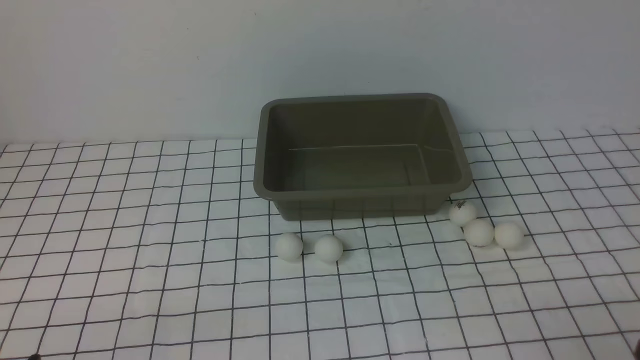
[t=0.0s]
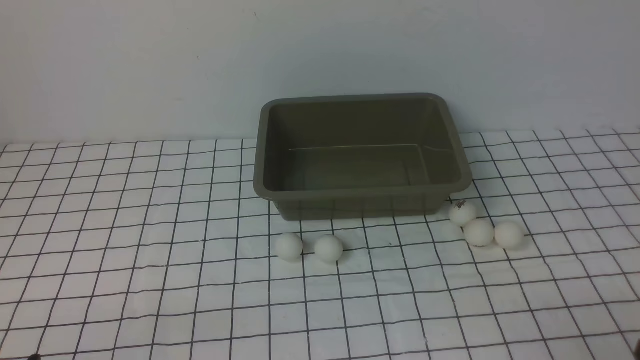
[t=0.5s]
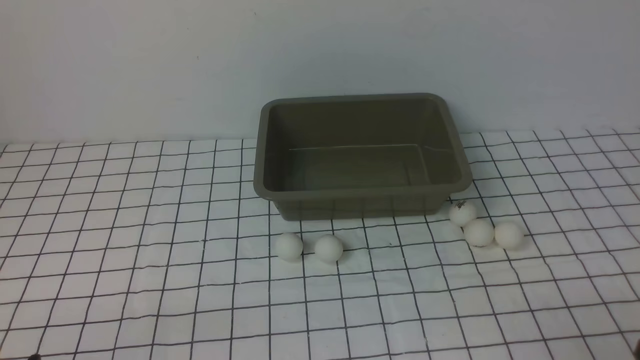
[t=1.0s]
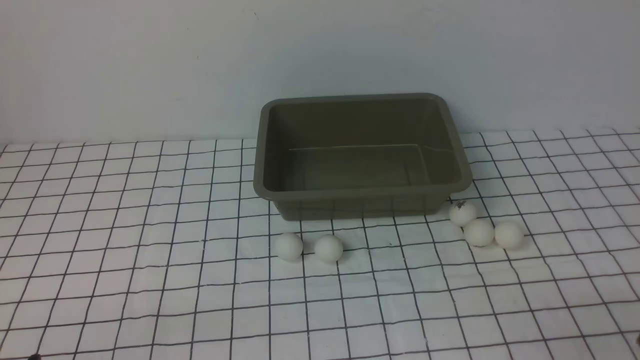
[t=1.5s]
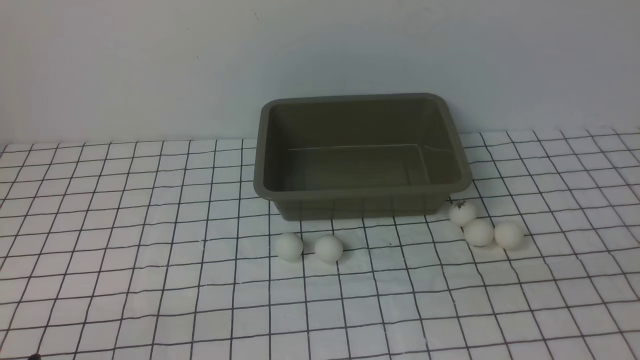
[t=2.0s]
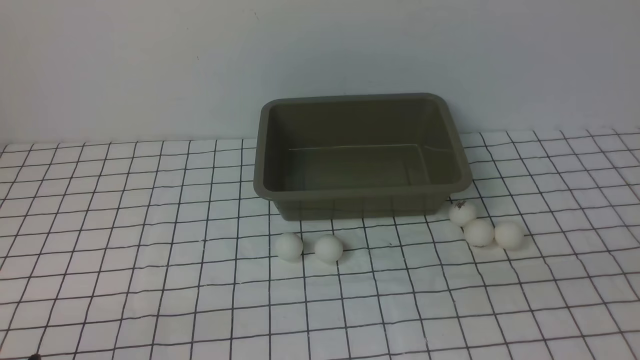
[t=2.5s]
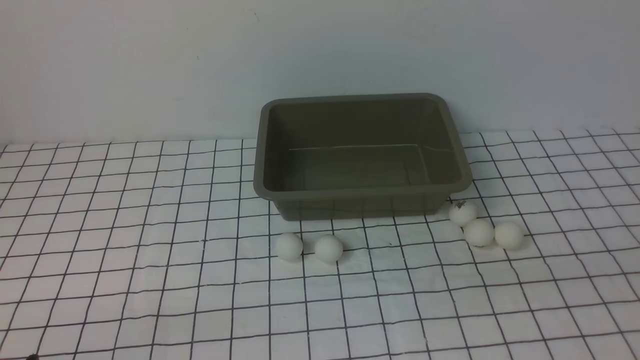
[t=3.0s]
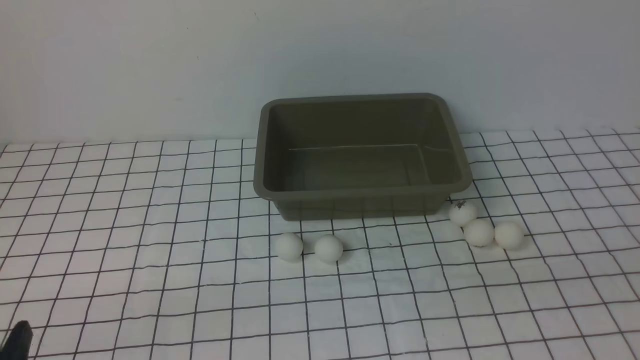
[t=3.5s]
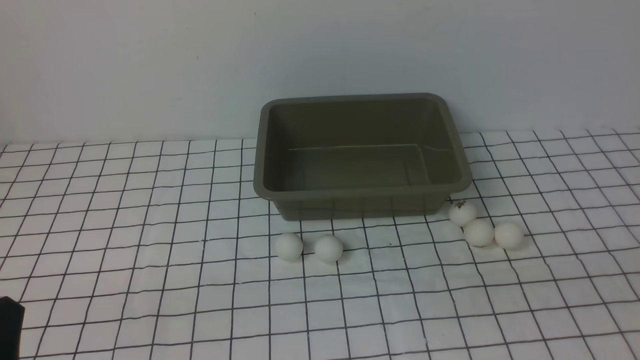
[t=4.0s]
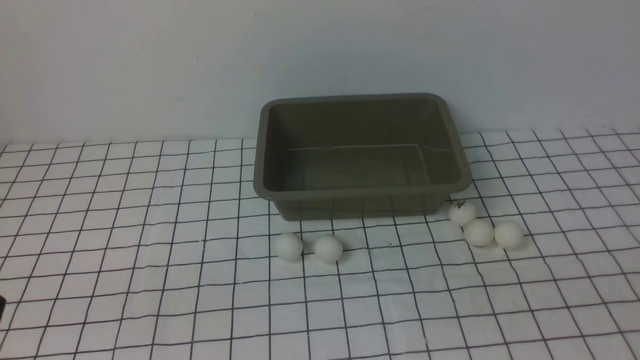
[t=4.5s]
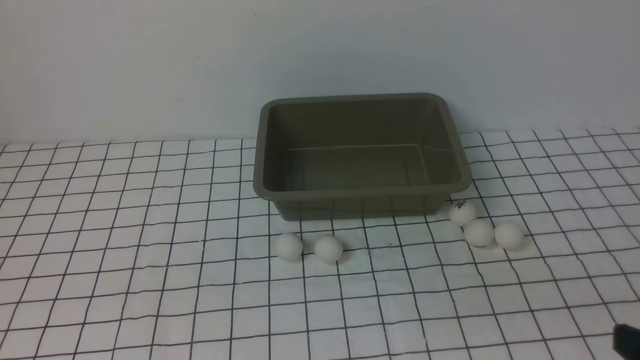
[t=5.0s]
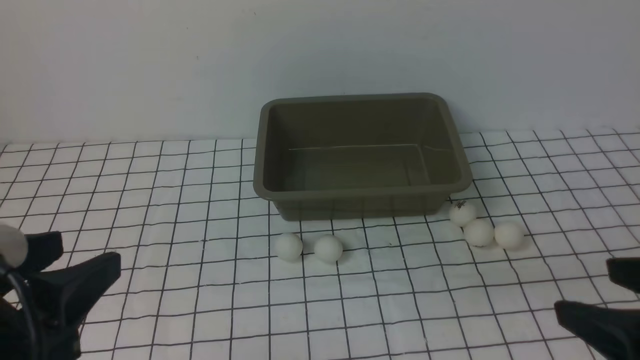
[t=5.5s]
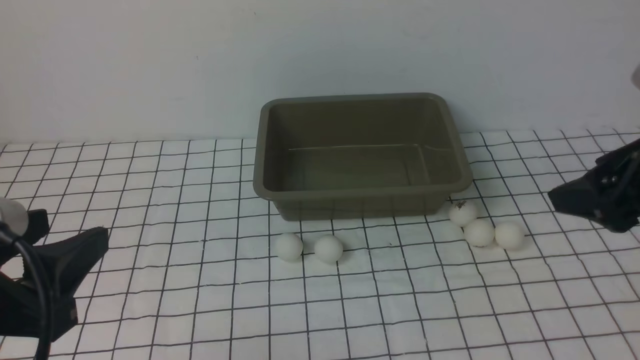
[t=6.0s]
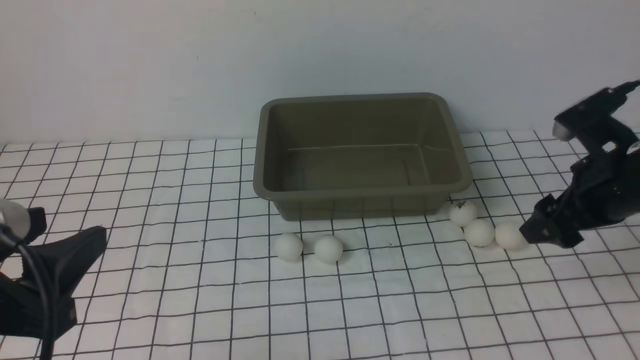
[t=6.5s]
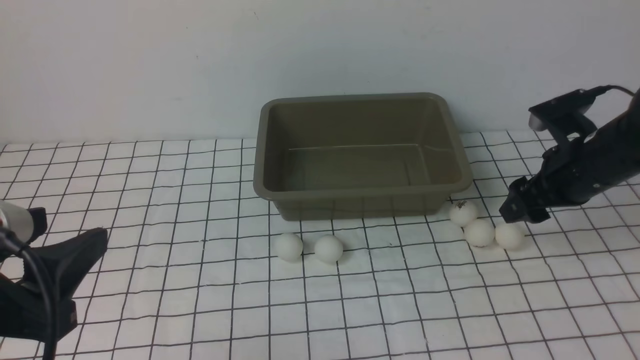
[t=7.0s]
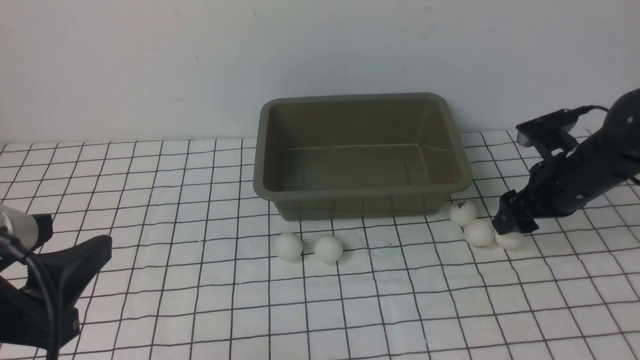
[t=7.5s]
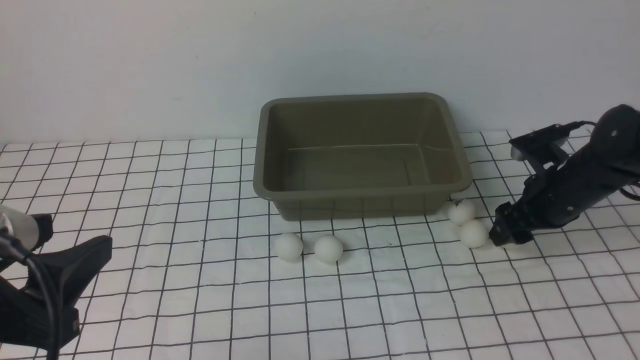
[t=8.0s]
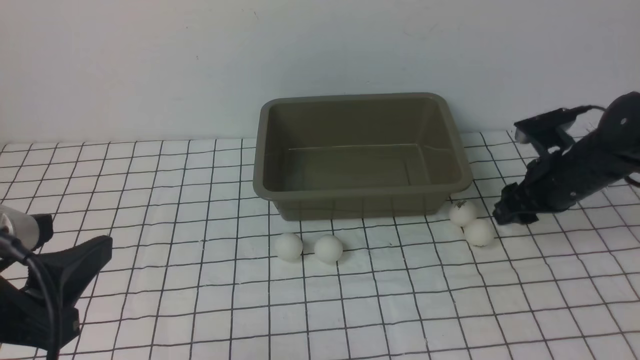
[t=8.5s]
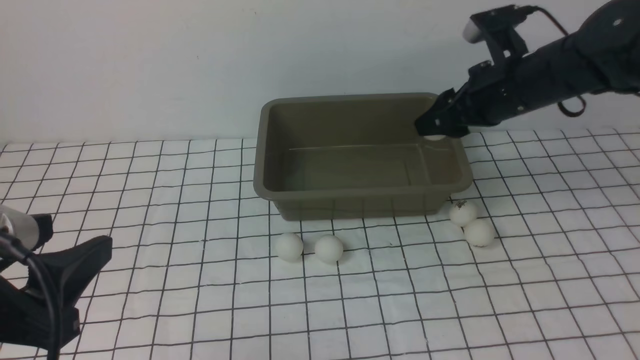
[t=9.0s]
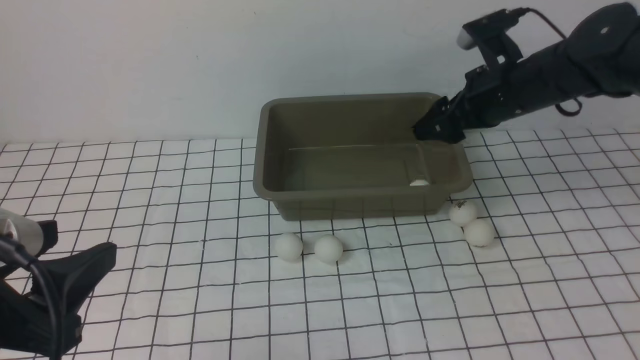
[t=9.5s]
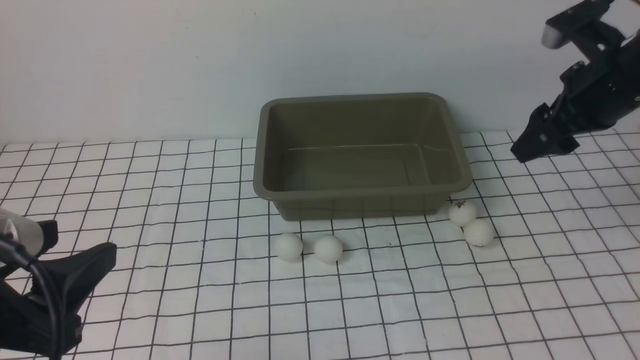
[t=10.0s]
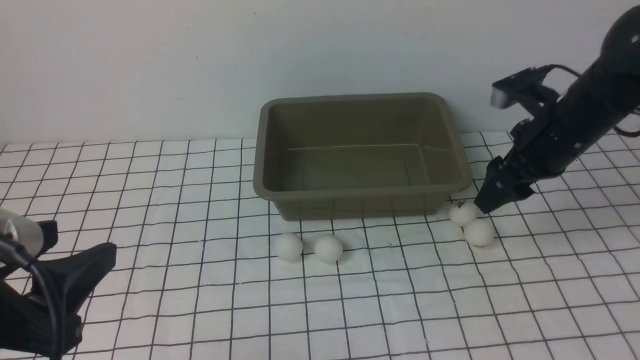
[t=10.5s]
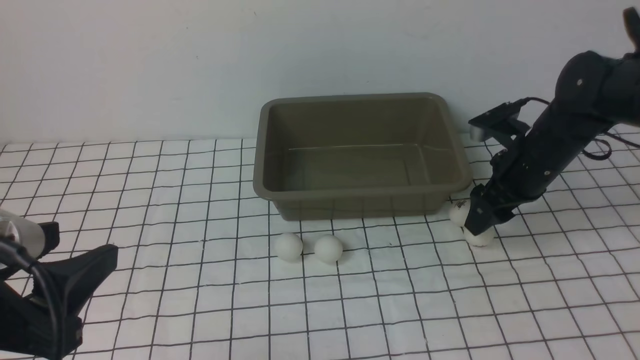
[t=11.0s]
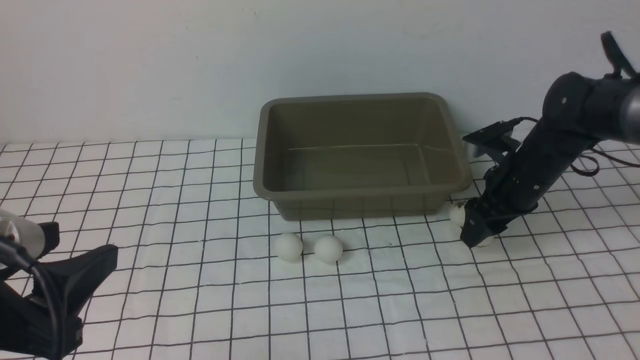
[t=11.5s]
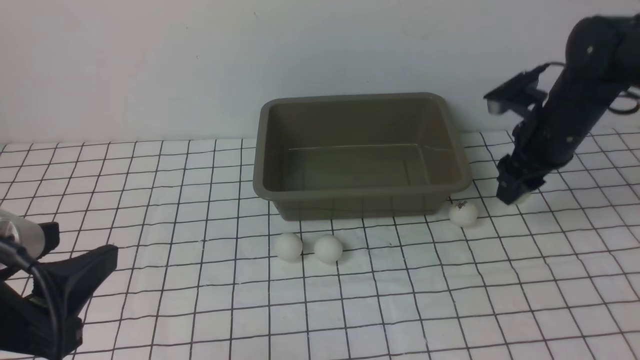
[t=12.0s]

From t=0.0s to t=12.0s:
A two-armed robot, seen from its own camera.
Step, from t=0.0s to t=8.5s: use the right arm to clamp the table tennis ball closest to it.
Step, from t=9.5s to t=12.0s: use the right arm to clamp the table tennis ball closest to it.
From t=4.0s to t=6.0s: The right gripper travels forward by approximately 25 cm, while the left gripper moves upward and forward, some 10 cm.
From t=6.0s to t=8.0s: The right gripper is displaced downward and forward by about 25 cm.
From t=8.0s to t=10.0s: The right gripper travels upward by about 15 cm, and closes and opens again.
From t=10.0s to t=12.0s: The right gripper goes approximately 5 cm downward, and closes its fingers.

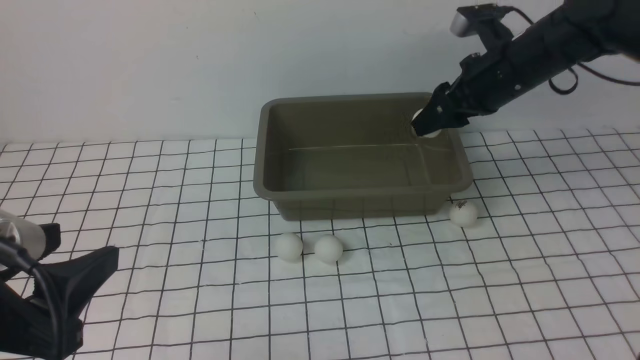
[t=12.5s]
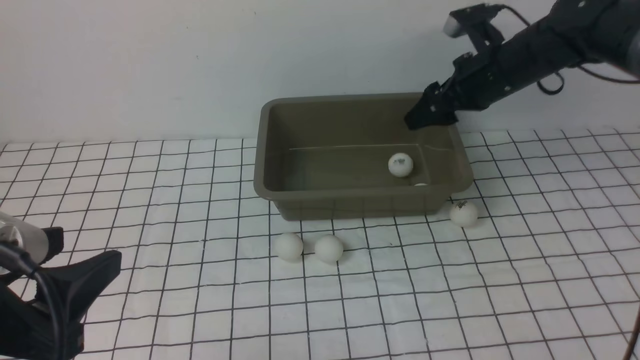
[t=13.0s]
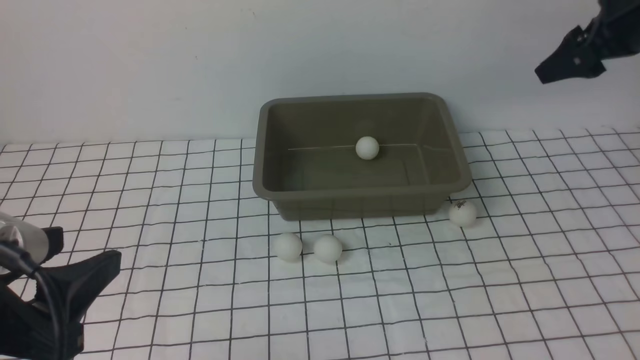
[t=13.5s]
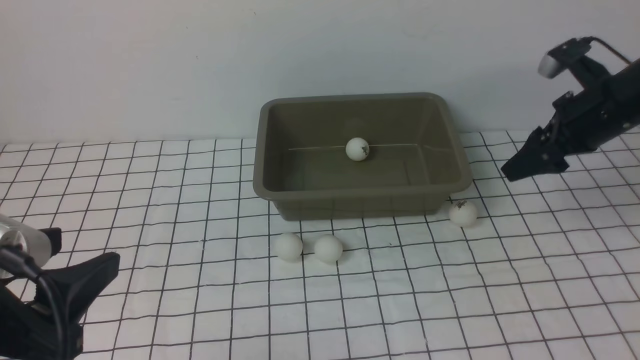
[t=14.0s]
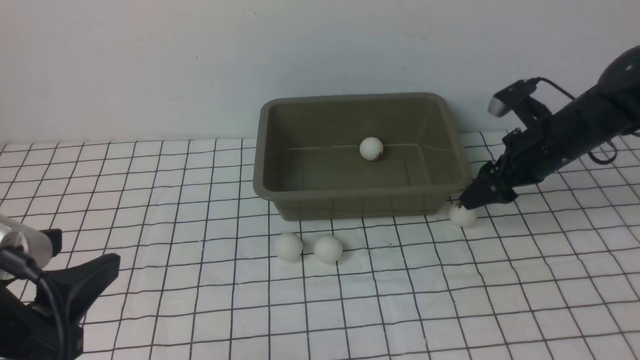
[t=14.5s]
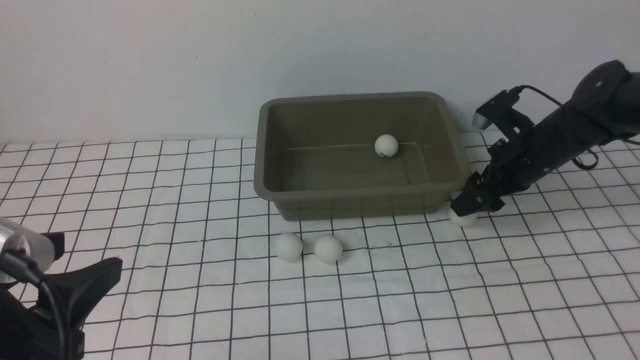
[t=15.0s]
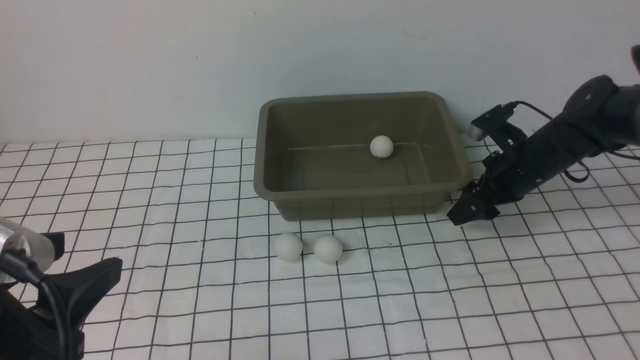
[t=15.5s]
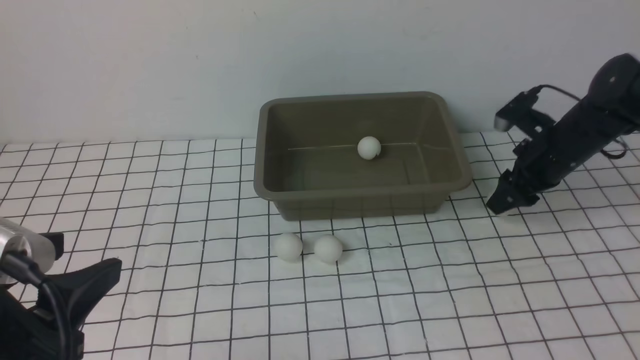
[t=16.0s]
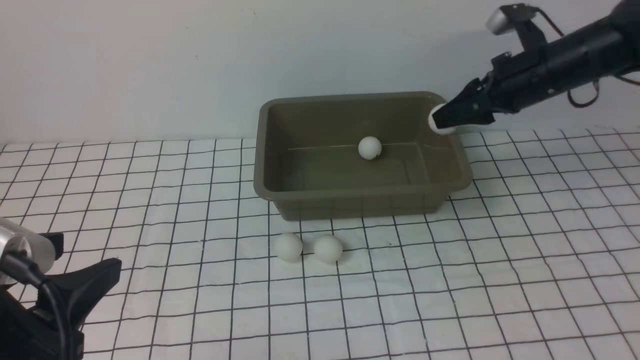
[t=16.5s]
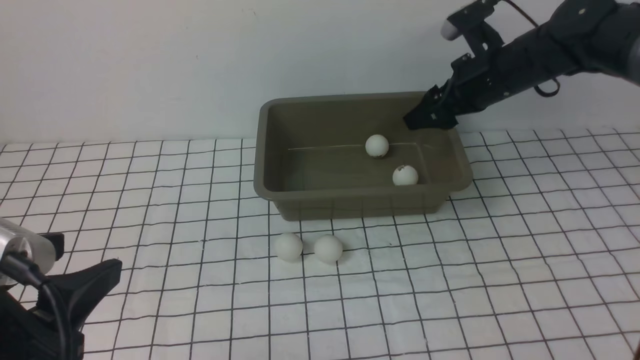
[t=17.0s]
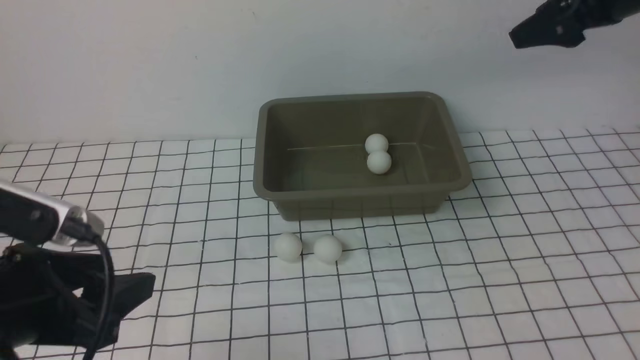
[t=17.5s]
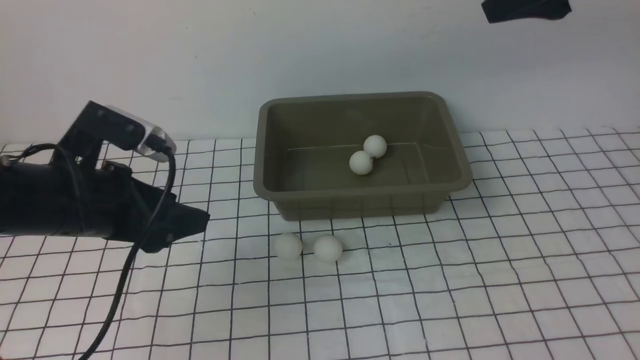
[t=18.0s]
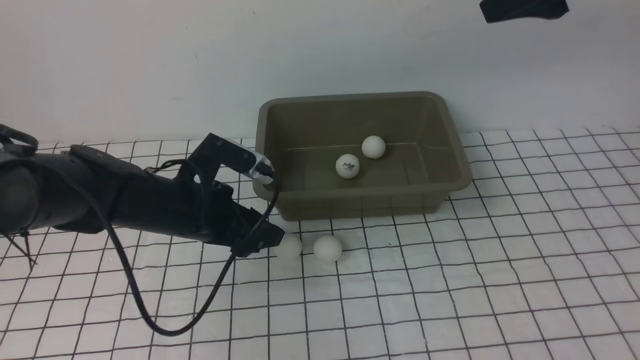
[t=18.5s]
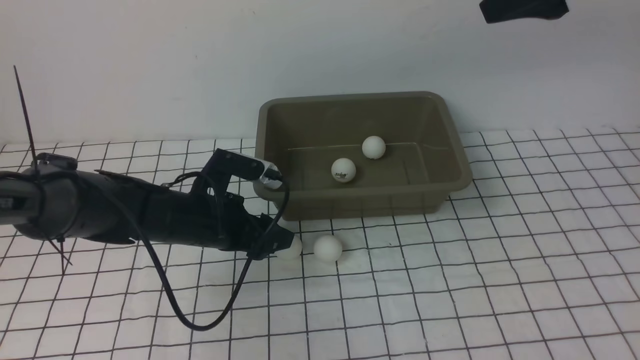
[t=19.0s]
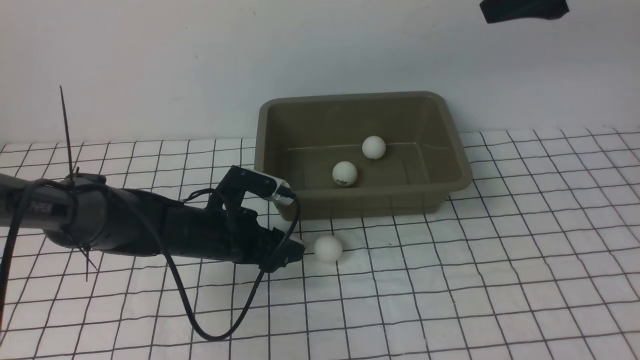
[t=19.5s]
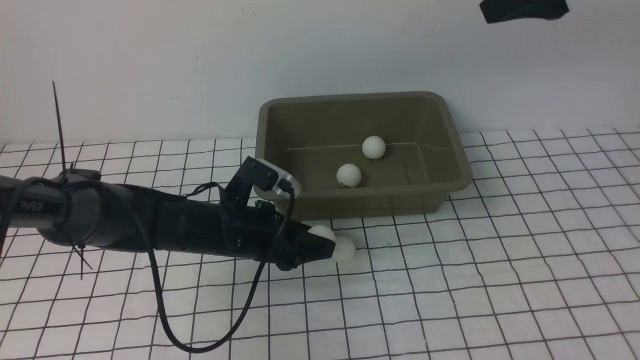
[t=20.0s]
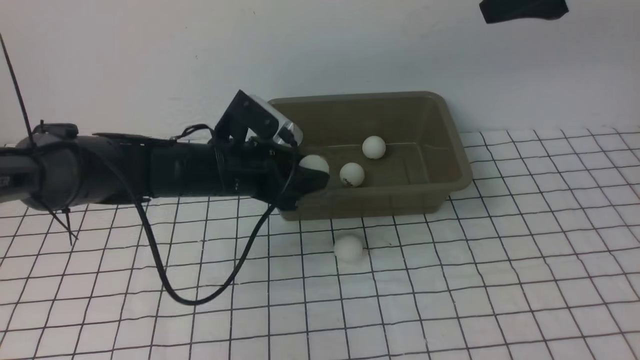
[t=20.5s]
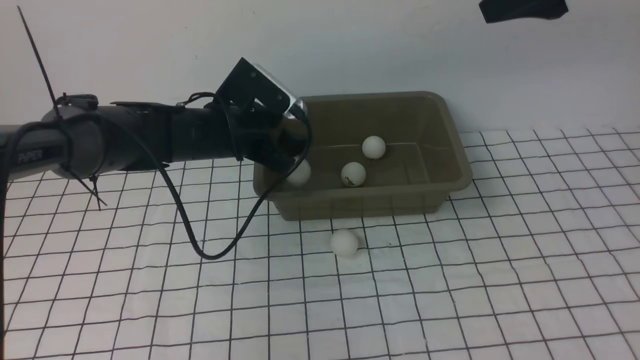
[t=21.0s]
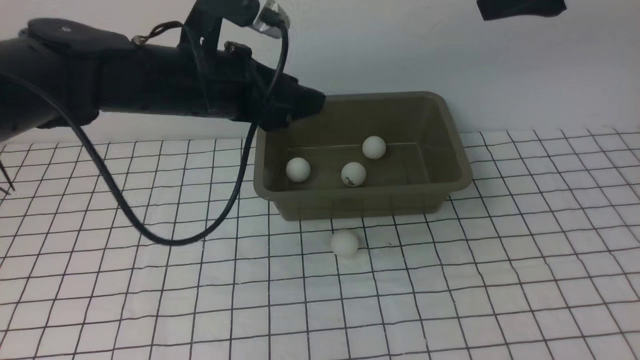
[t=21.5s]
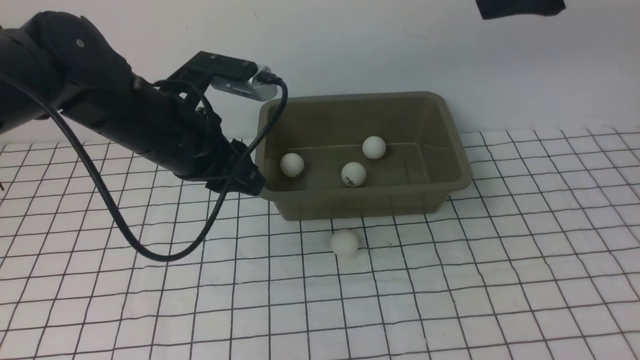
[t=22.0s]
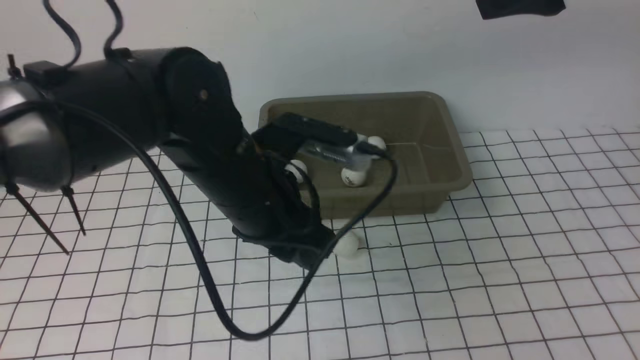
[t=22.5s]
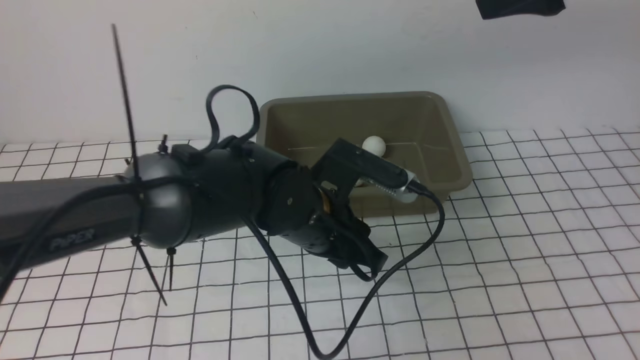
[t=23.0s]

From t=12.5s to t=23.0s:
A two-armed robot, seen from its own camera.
Step, from t=13.0s to t=15.5s: use the right arm to clamp the table tennis ball closest to it.
Step, from t=16.5s to t=17.0s: use the right arm to put the table tennis ball into the box.
Step, from t=17.5s to t=19.5s: use the left arm to clamp the table tennis ball closest to it.
Step, from t=20.0s to t=21.0s: use the left arm to put the table tennis ball into the box.
From t=12.5s to t=14.5s: The right gripper shifts about 10 cm downward and to the right, and opens its fingers.
From t=14.5s to t=16.5s: The right gripper travels upward by approximately 5 cm, and closes its fingers.
From t=16.5s to t=19.0s: The left gripper is displaced forward and downward by roughly 30 cm; the right gripper heads upward and backward, covering some 20 cm, and opens up.
From t=19.0s to t=21.0s: The left gripper moves upward and forward, roughly 10 cm, and closes and opens again.
From t=21.0s to t=23.0s: The left gripper shifts some 15 cm backward and to the right, and closes.
